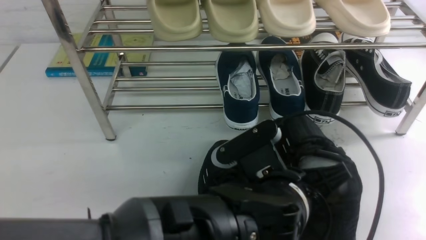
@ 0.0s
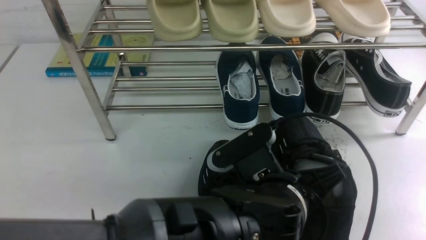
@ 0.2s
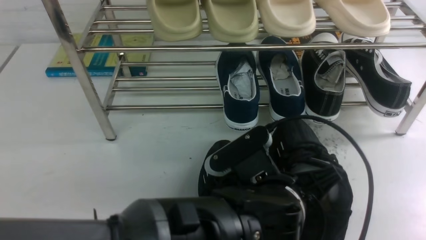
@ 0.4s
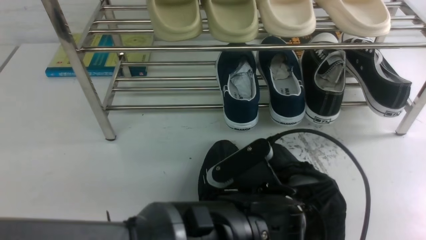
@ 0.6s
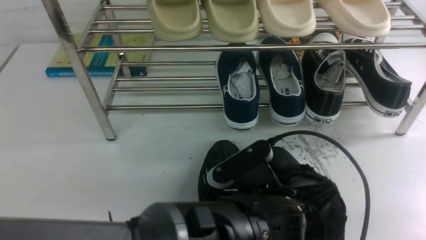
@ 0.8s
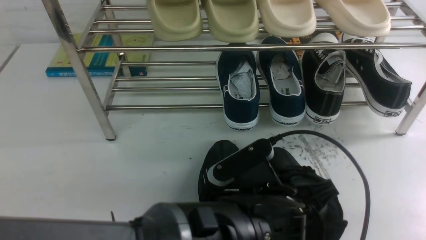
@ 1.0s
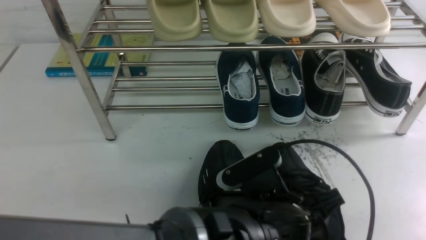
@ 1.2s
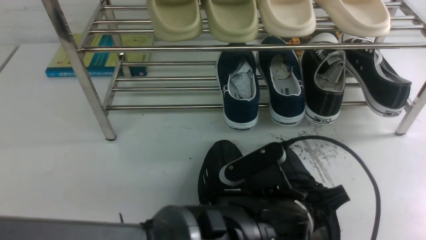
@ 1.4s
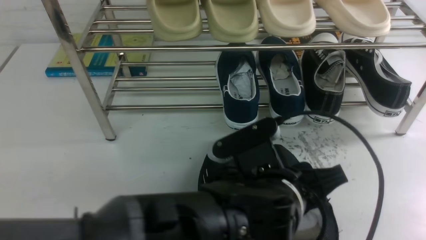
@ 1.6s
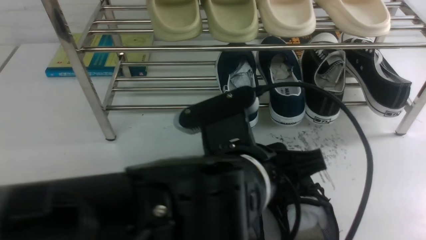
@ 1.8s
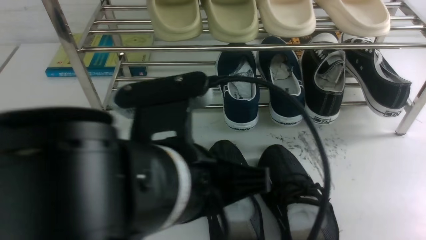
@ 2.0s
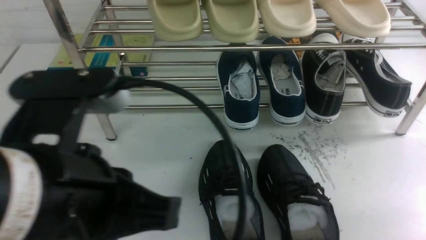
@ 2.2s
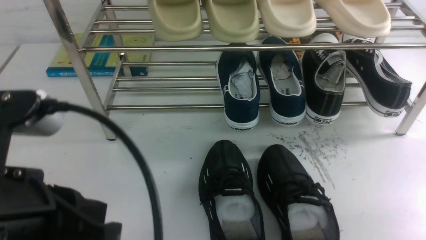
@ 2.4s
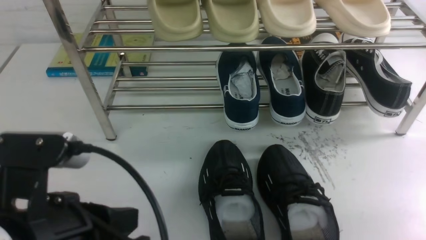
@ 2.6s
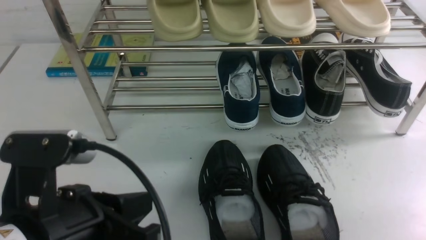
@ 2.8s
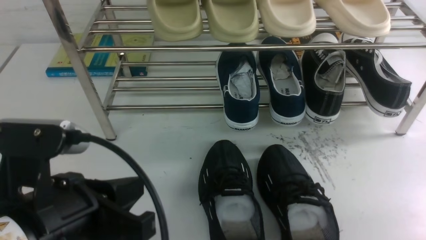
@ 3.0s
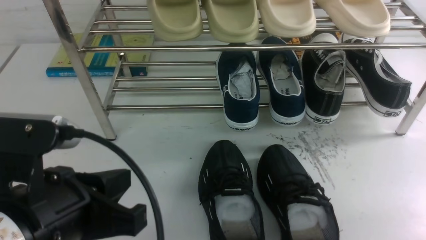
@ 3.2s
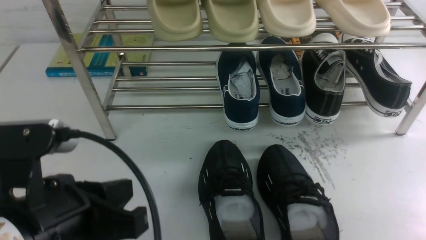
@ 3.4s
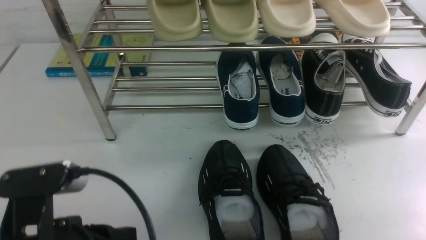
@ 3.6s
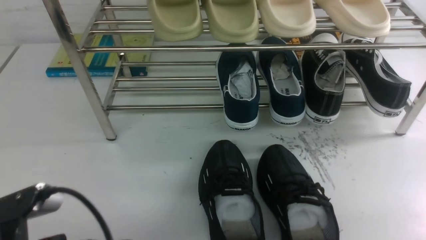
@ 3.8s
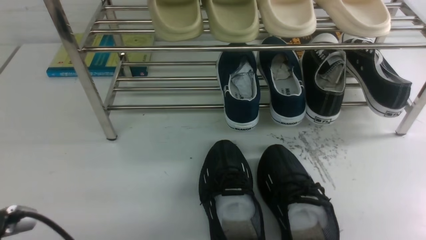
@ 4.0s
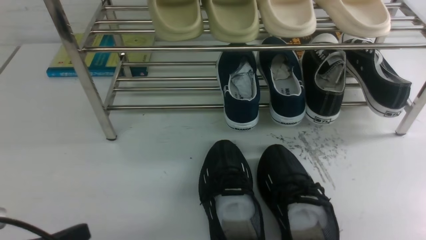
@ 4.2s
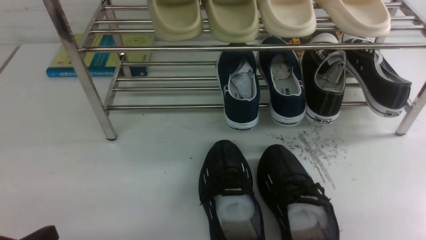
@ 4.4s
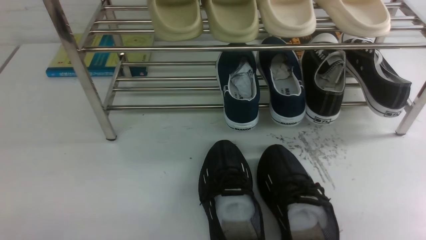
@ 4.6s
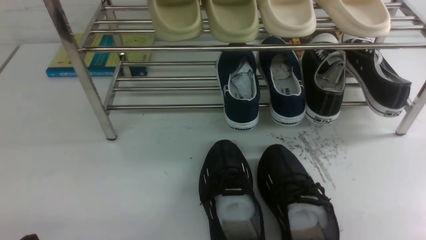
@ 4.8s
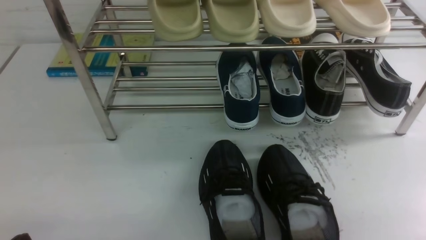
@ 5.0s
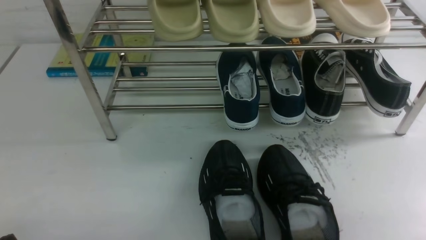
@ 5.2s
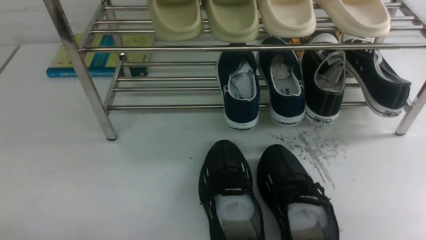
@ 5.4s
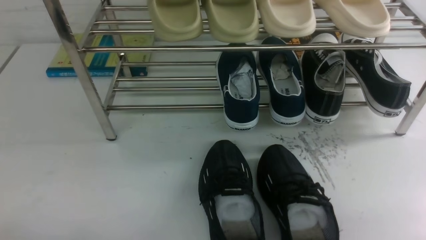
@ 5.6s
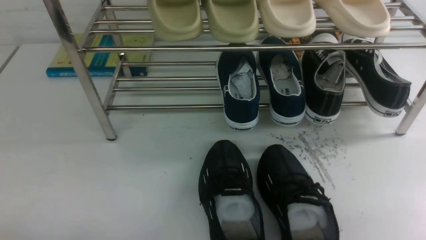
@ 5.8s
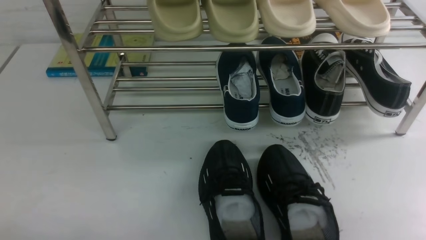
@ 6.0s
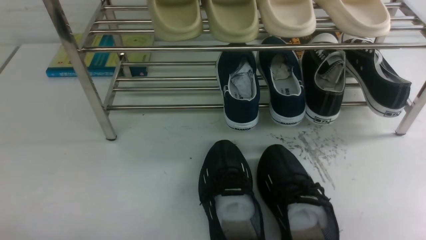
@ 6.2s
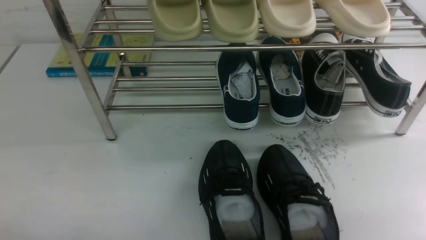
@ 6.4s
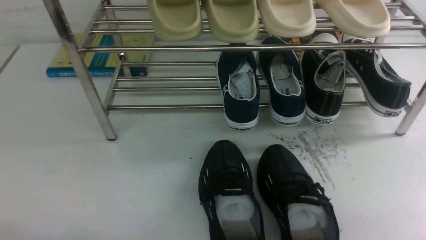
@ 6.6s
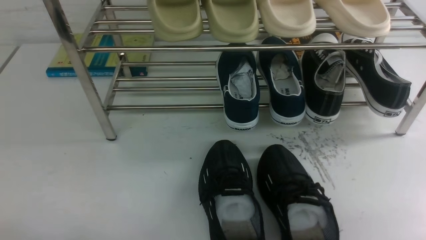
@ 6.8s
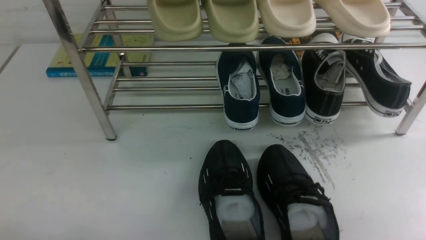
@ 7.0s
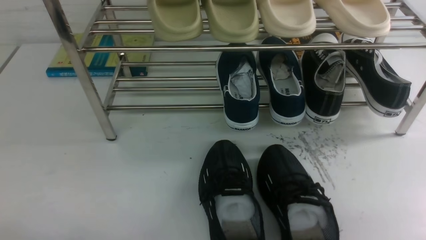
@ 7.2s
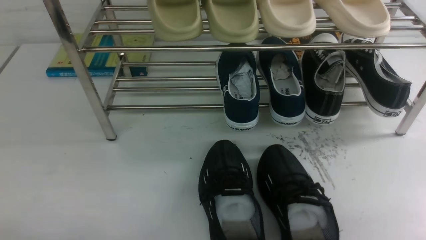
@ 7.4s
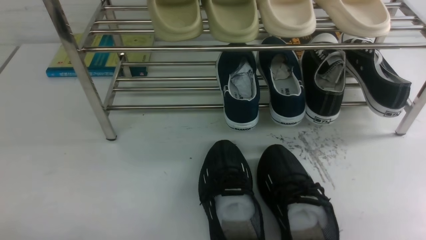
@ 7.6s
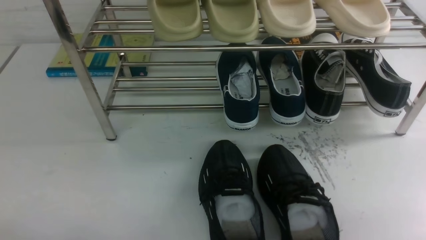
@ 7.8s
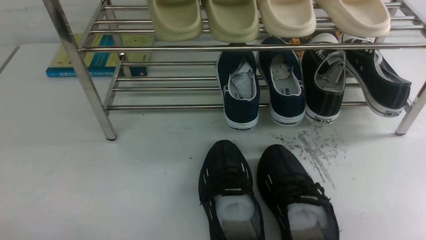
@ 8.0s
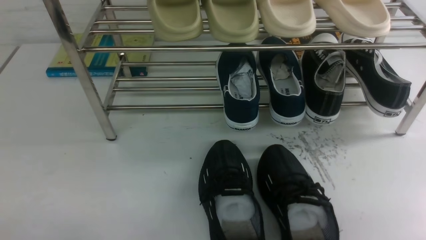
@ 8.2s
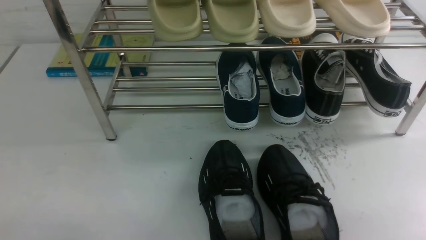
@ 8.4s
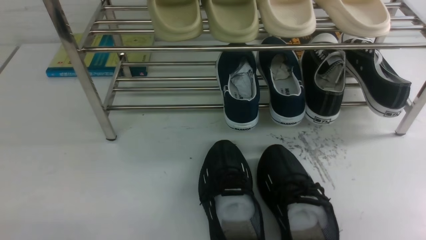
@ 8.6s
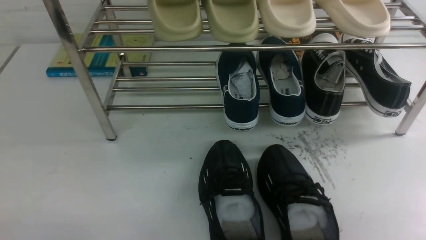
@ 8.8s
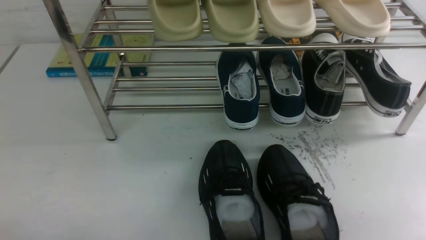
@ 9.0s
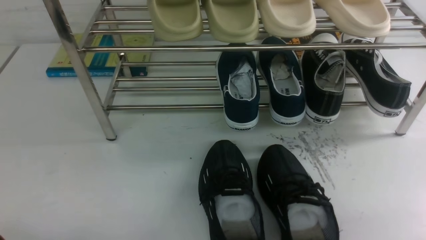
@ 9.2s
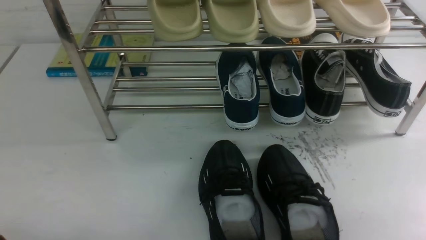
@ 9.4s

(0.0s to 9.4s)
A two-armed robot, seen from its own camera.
Step, 0.0s - 1.8s: Use your left arm to remove the clamped shoe from the shoe rack and put it down.
0.0s - 1.6s: The left gripper opens up.
1.6s - 3.2s: The left gripper goes about 20 cm to the left, and closes its fingers.
3.2s - 4.8s: The left gripper goes approximately 20 cm downward and to the left.
6.2s - 7.8s: Both grippers stay put.

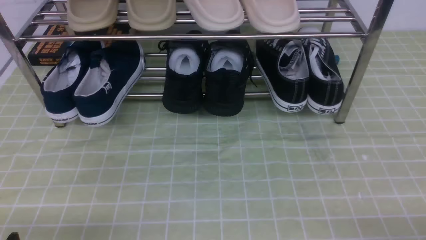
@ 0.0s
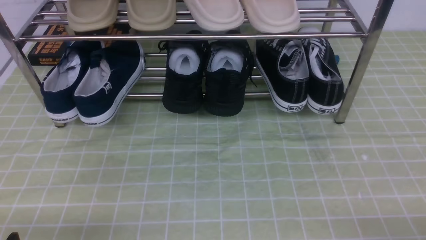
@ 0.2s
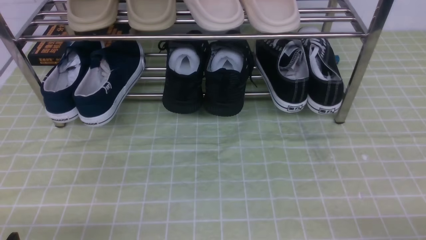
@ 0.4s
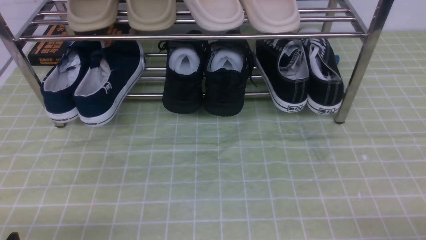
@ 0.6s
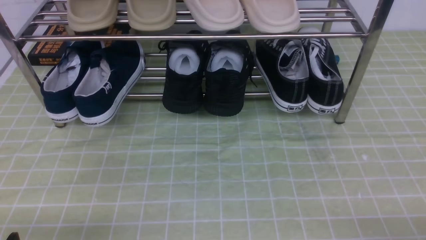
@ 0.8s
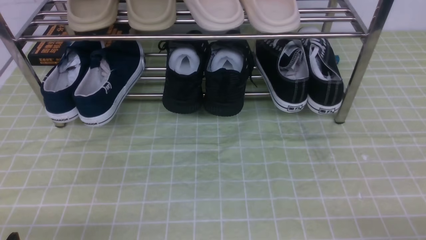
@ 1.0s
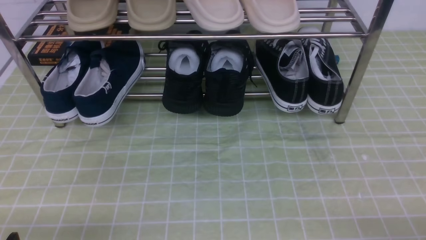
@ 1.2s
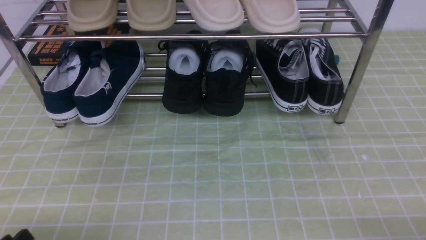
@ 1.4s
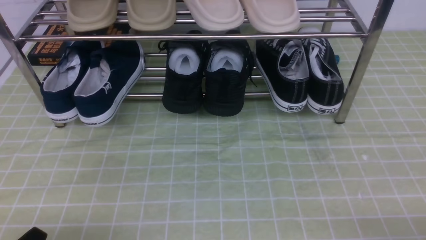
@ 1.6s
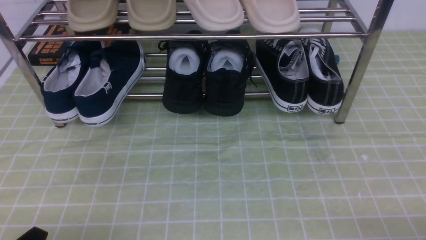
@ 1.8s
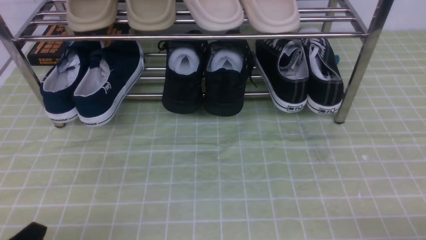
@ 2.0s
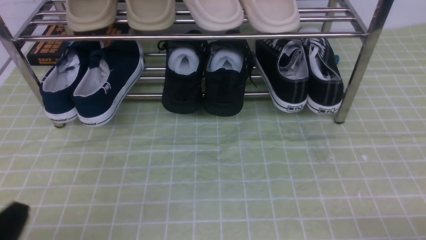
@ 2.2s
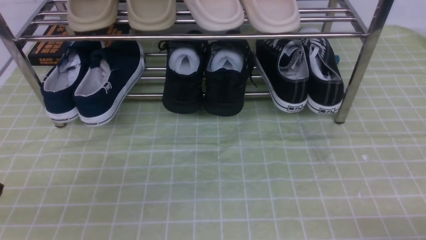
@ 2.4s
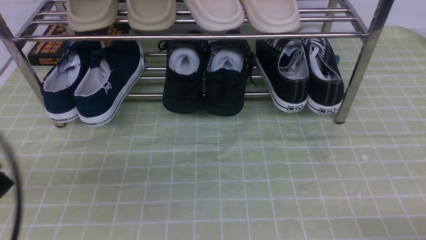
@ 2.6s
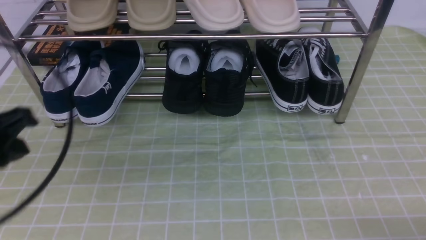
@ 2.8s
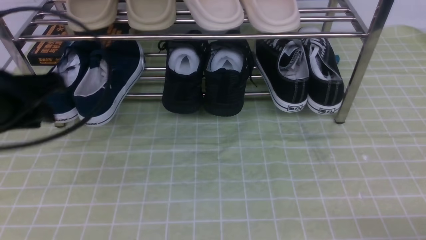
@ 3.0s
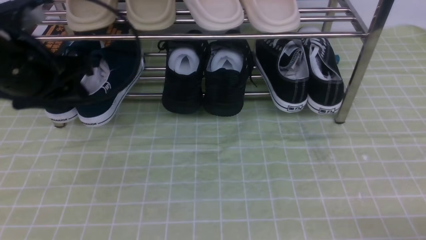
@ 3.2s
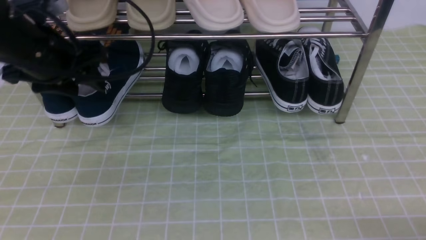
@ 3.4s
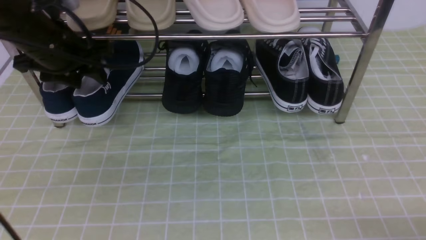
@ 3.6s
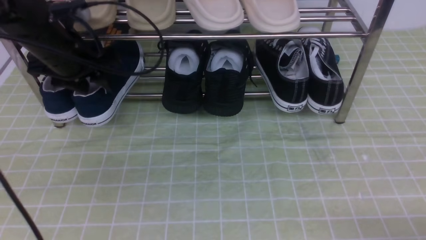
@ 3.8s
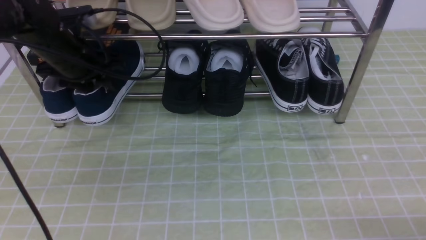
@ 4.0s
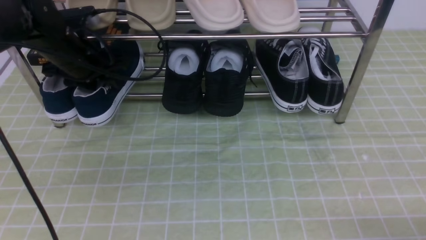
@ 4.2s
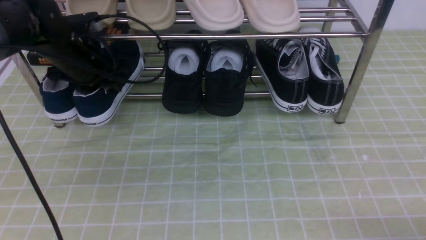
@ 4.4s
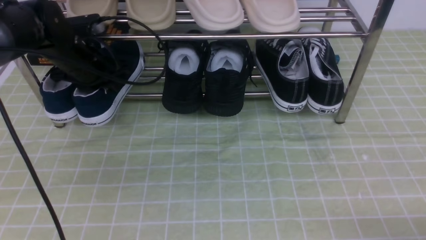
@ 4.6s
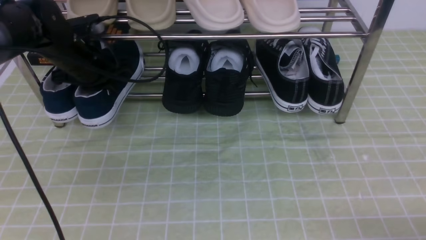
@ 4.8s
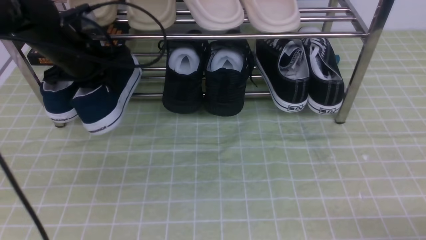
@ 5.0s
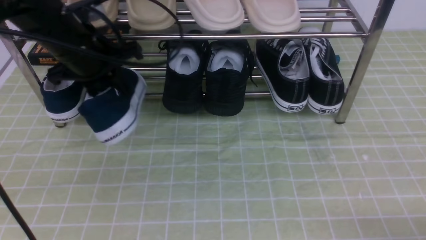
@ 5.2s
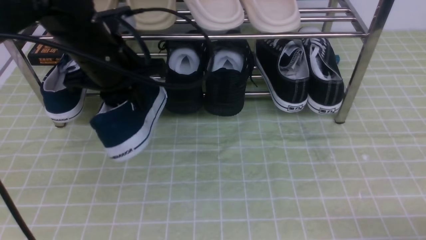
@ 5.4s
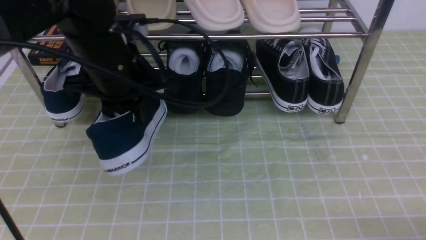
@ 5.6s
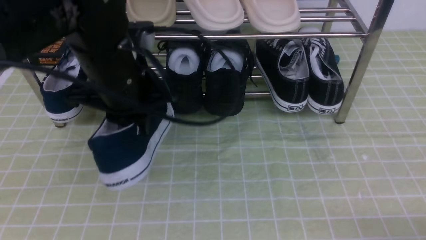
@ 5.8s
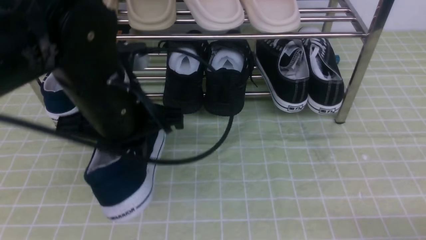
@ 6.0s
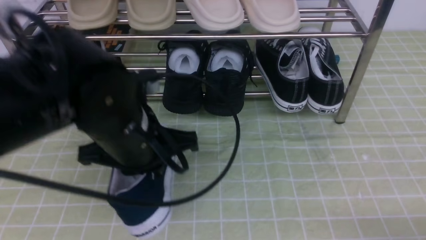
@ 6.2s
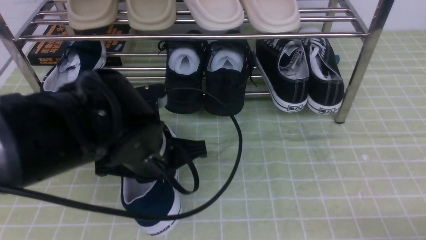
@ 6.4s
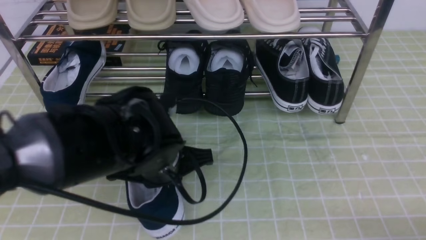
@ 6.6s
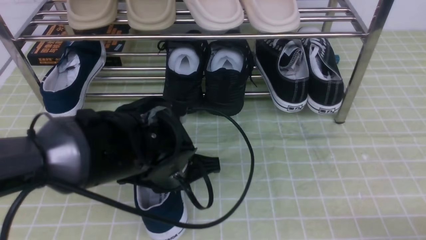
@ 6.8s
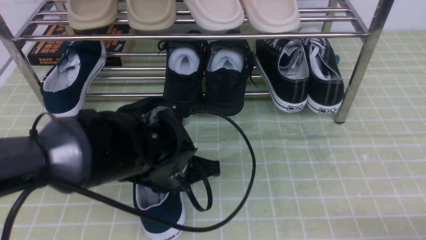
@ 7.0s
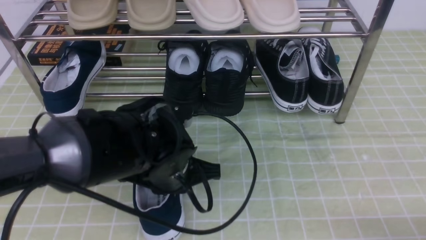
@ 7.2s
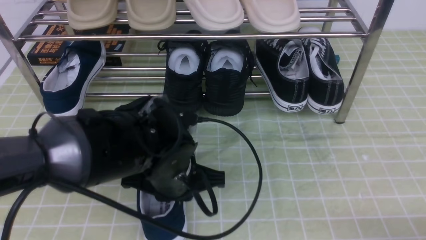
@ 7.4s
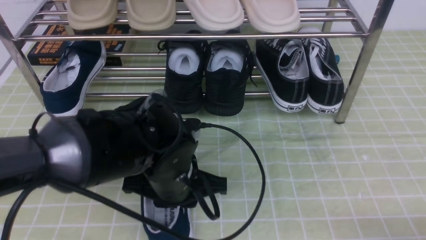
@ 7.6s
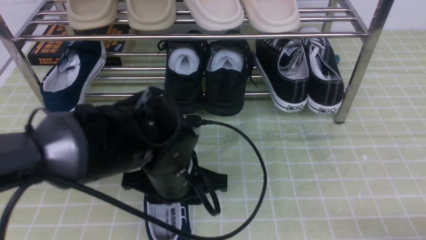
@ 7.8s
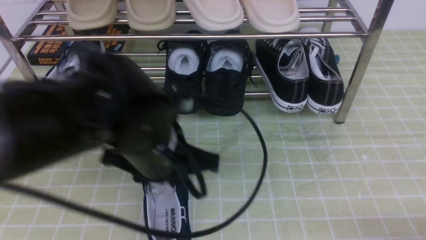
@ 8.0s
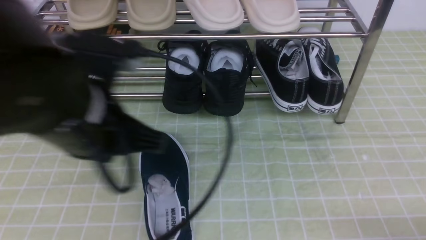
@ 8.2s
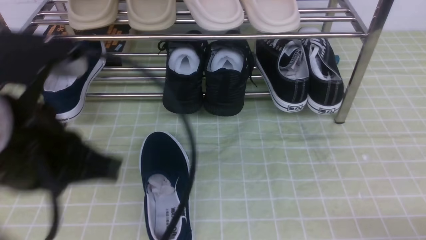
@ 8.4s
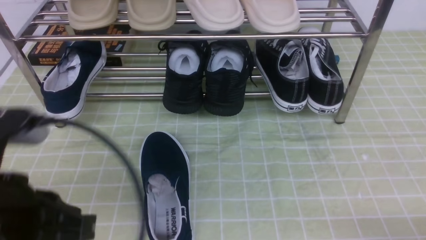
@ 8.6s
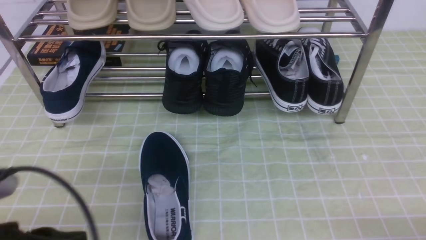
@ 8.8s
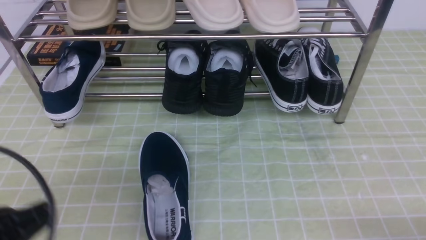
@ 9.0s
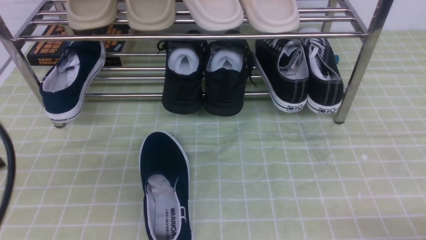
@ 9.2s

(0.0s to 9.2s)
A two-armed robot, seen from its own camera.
Step, 0.0s - 4.8s: use the left arm to clamp a shoe on the left side of the shoe rack.
Step, 5.0s - 8.0s: Use your left arm to remove the clamped shoe from the shoe rack and put it down.
1.6s - 3.0s: The left gripper heads forward and upward, covering about 25 cm, and closes and opens again.
3.0s - 4.6s: The left gripper is displaced forward and downward by approximately 20 cm, and opens, then closes once more.
4.6s - 6.2s: The left gripper travels backward and to the right by some 25 cm, and closes up.
6.2s - 7.6s: The left gripper heads downward, covering about 5 cm, and opens up.
7.6s - 9.2s: The left gripper travels to the left, upward and backward by roughly 25 cm, and closes up.
